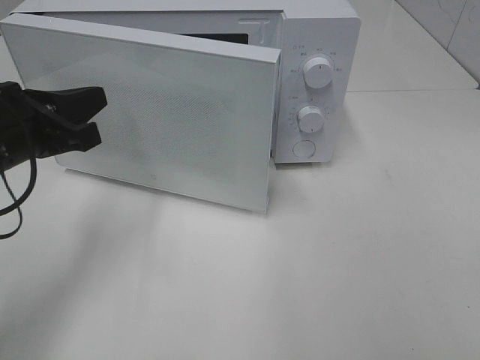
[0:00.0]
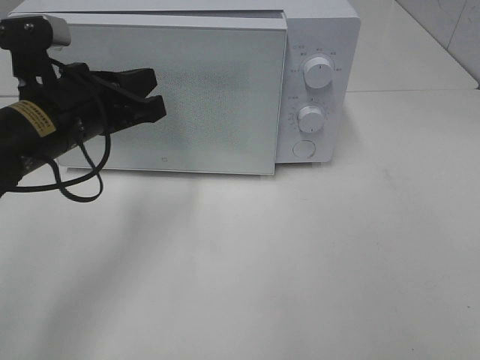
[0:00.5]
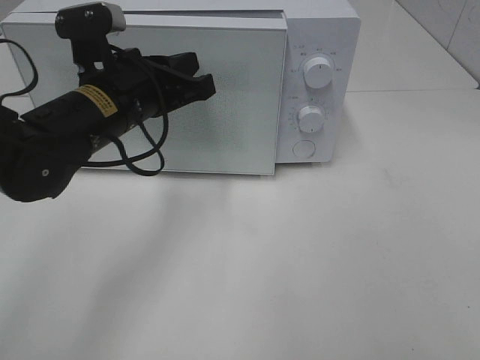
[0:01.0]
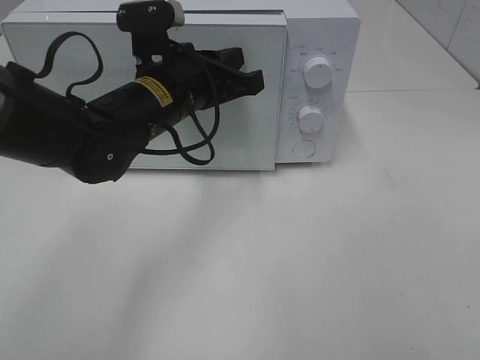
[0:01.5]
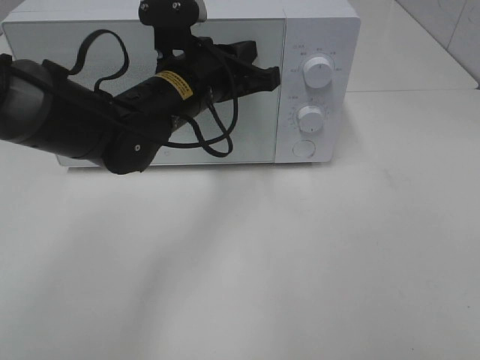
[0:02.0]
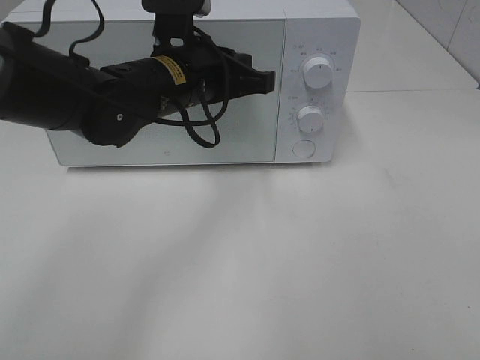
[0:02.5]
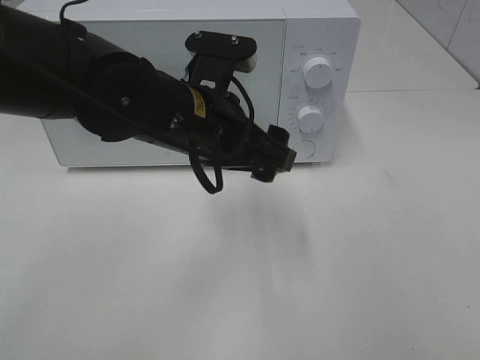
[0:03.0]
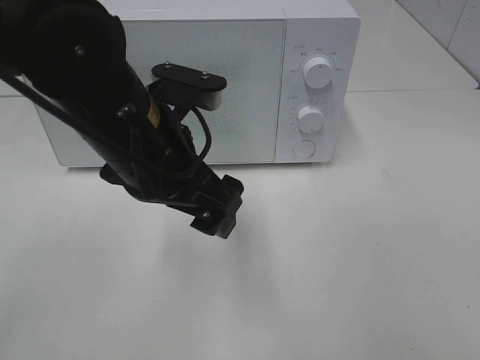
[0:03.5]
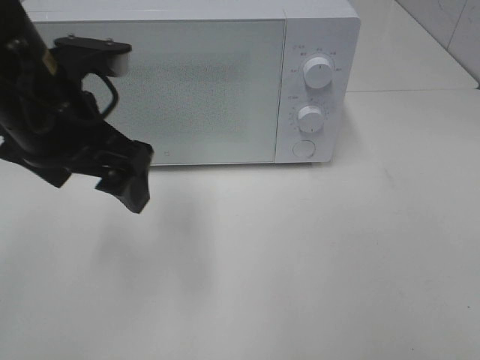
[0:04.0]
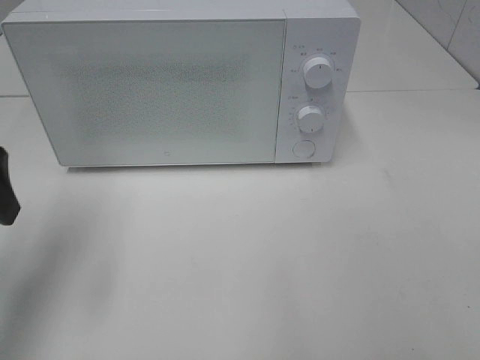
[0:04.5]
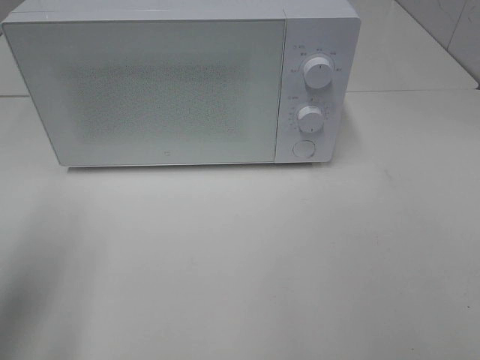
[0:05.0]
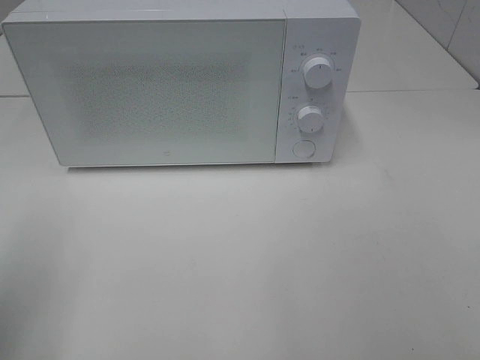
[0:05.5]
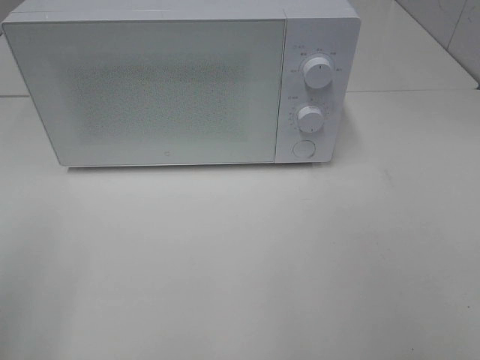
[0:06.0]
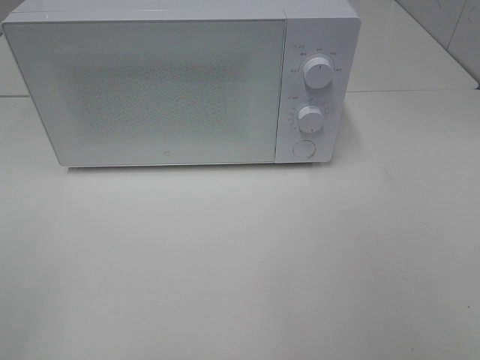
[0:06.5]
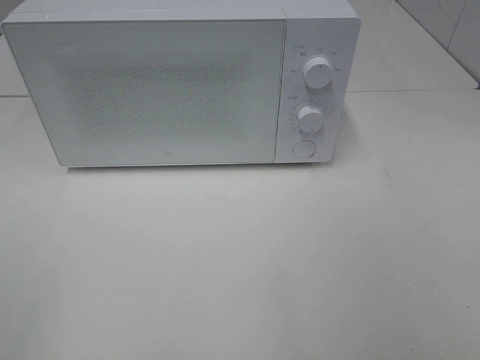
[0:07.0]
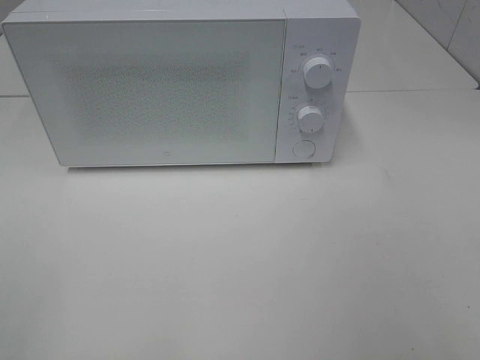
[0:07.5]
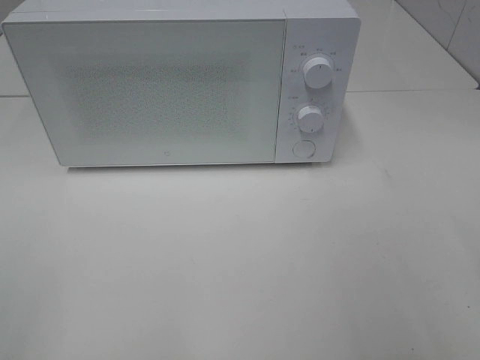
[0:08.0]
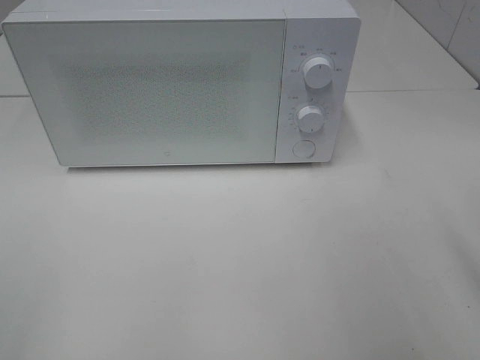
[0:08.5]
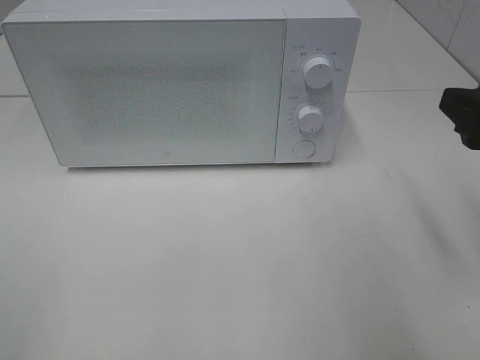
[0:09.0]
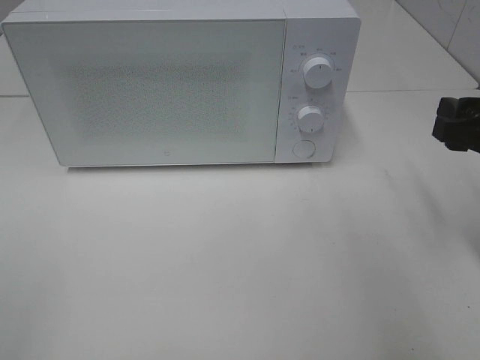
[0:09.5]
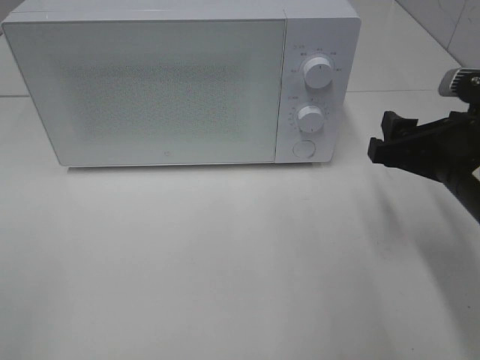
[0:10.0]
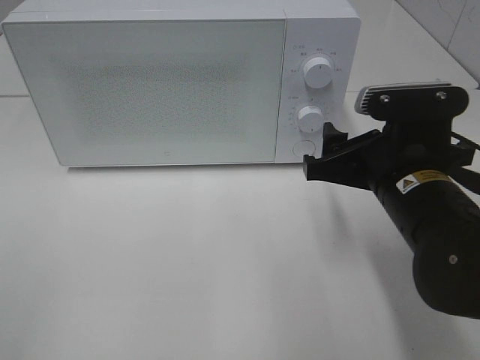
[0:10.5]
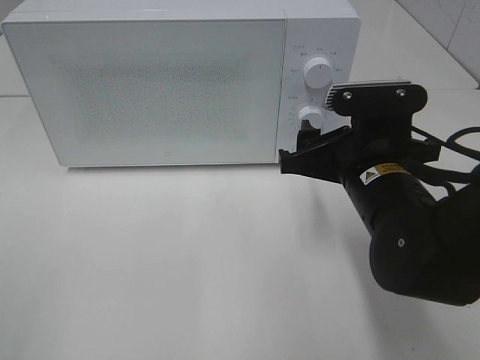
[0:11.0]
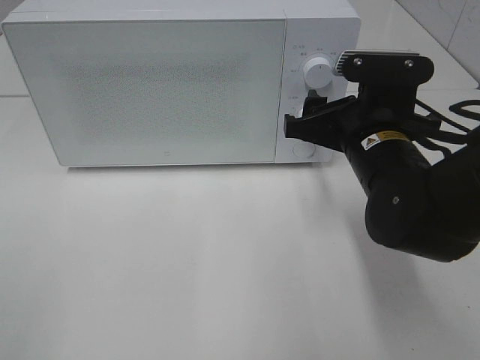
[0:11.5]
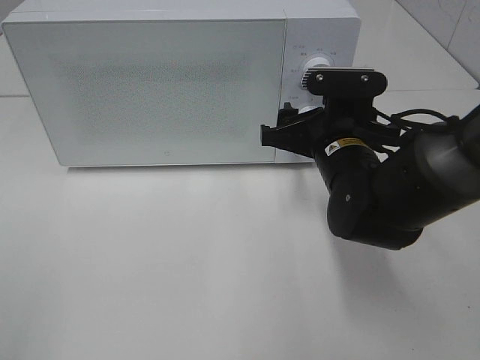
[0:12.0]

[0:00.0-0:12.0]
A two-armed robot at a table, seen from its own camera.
Task of the whole recording: Heat the burger.
Step, 0:00.0 to 0:02.5: Left hand: close the microwave door.
0:00.0 to 0:02.0: The left gripper moves to the right and forward, some 20 cm.
0:02.0 to 0:04.0: The left gripper heads to the left, backward and upward, covering about 15 cm, and opens.
0:04.0 to 0:06.0: The left gripper shifts some 25 cm backward and to the left.
0:08.0 to 0:10.0: The right gripper moves forward, downward and to the left, approximately 20 cm.
0:10.0 to 0:12.0: The right gripper heads to the left and forward, covering roughly 10 cm.

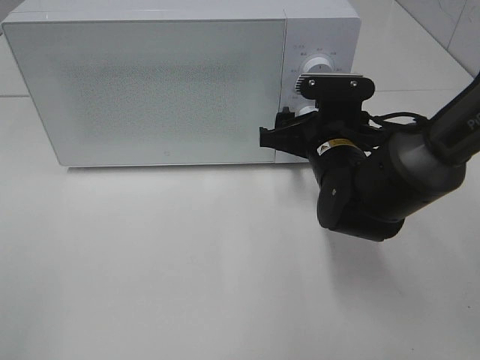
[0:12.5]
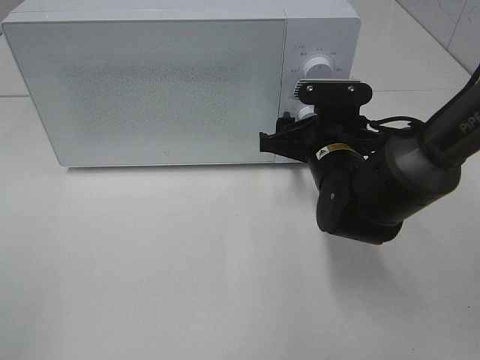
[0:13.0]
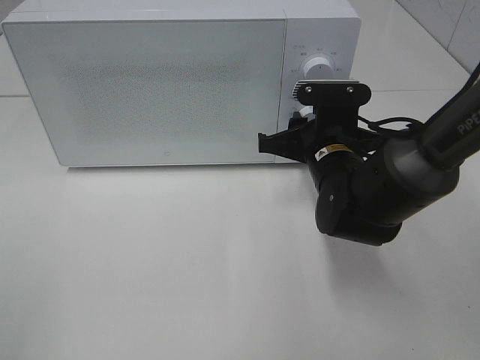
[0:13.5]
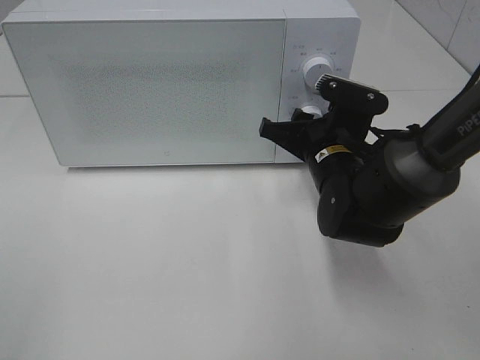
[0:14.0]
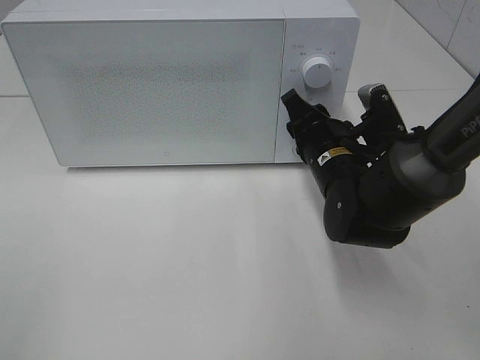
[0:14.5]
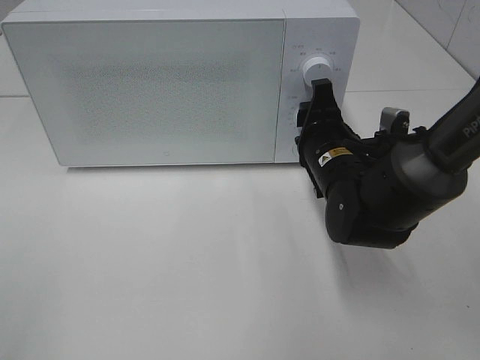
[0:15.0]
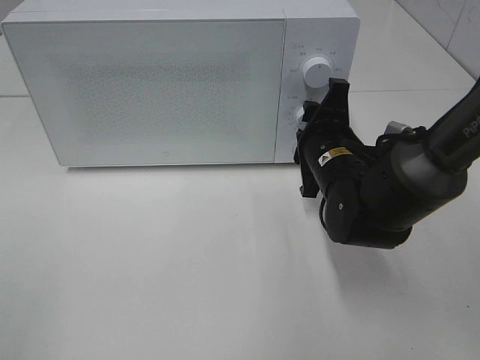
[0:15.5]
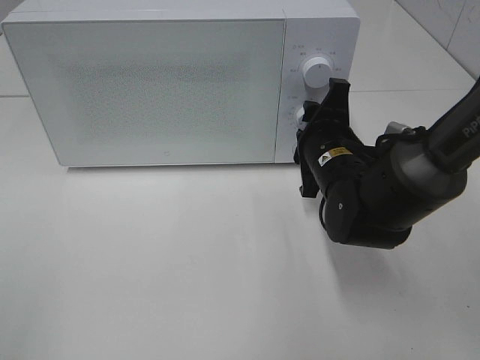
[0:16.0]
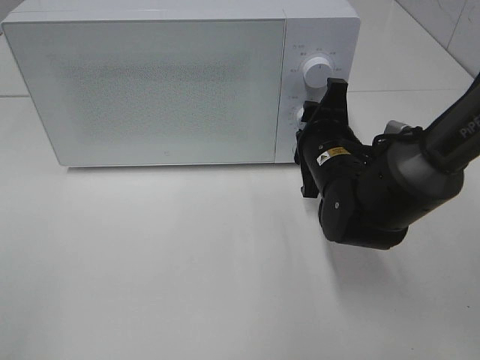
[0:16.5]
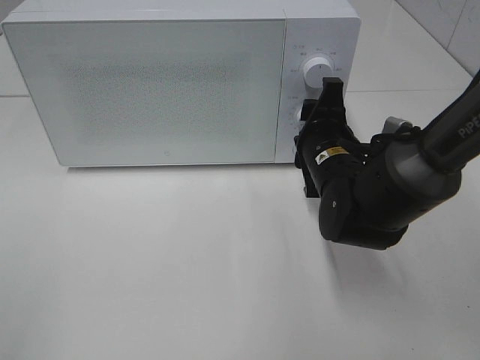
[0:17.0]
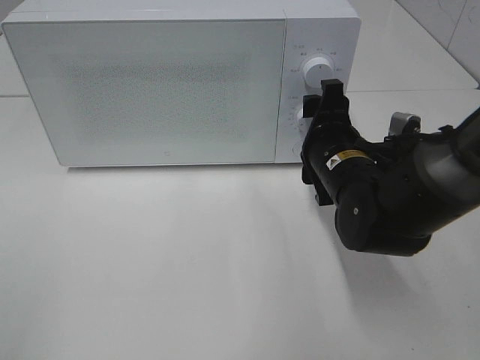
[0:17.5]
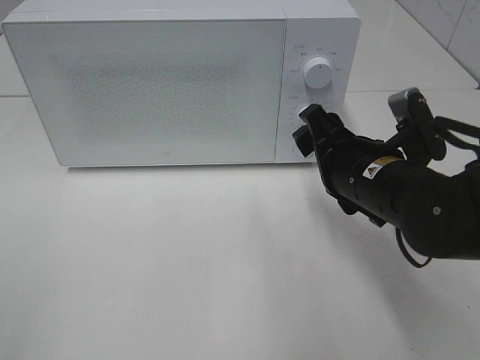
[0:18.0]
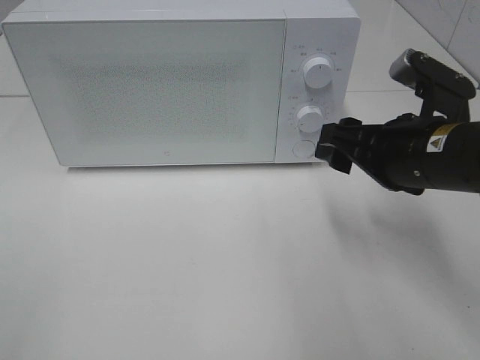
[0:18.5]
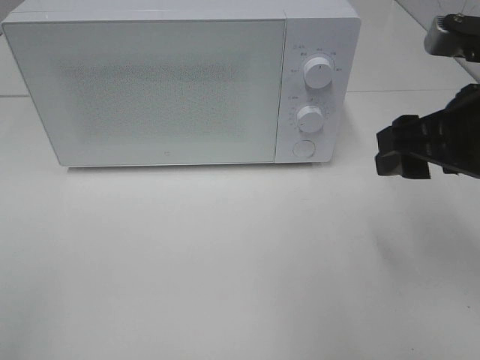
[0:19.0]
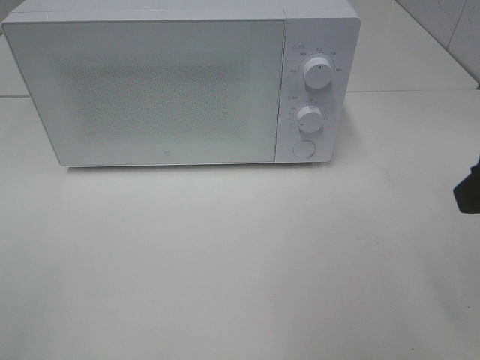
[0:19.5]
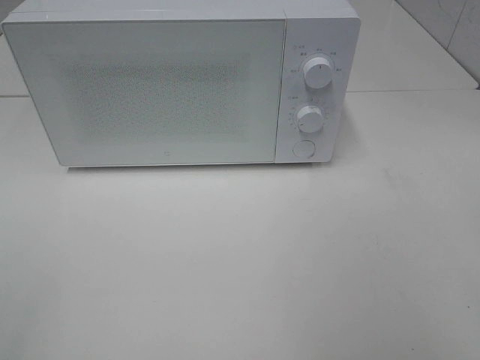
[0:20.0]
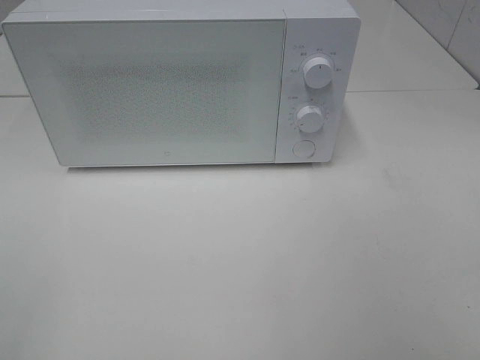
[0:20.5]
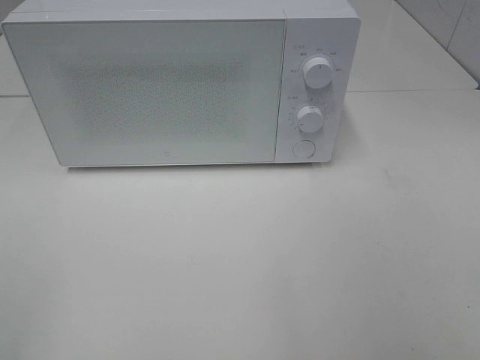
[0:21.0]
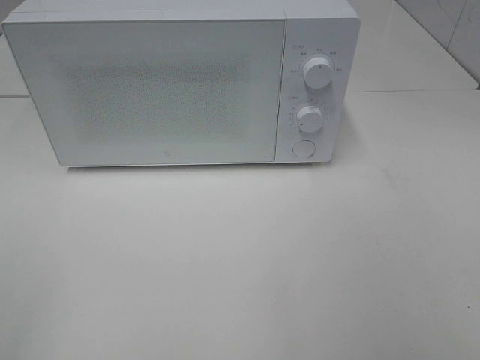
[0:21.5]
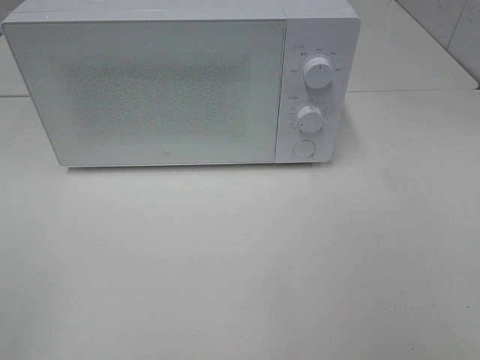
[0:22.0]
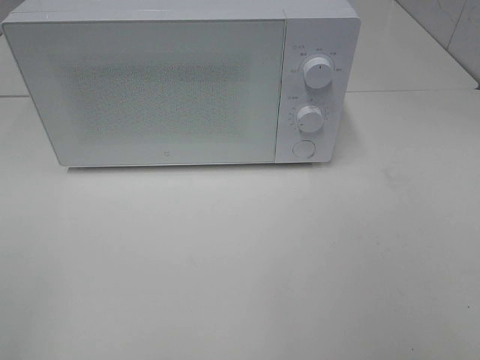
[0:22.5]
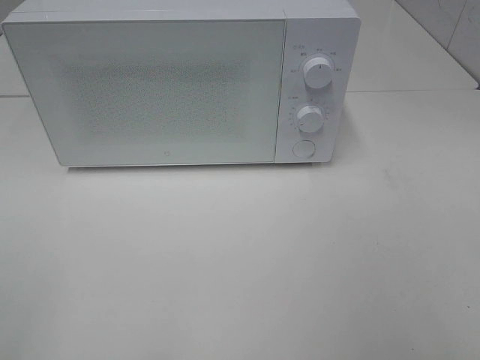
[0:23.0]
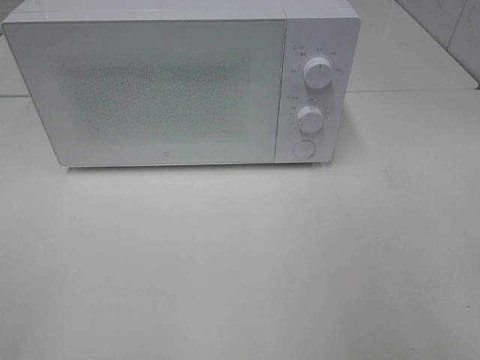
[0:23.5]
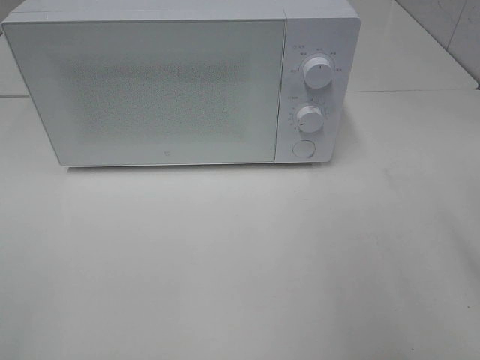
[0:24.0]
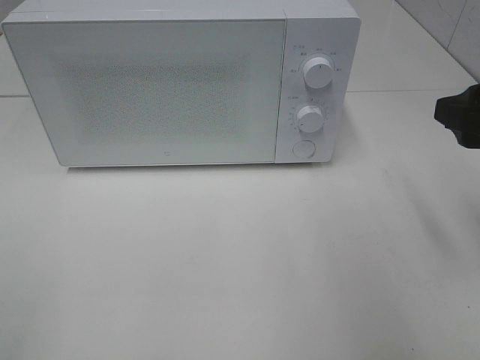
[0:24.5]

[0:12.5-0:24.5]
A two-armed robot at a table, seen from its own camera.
Task of the whole recording: Heat the burger.
Step, 0:12.5 to 0:17.0: Right hand: twist timer button.
0:12.5 to 0:14.5: The right gripper closes up.
0:16.5 to 0:18.5: The right gripper shifts approximately 15 cm upward, backward and to the right, and opens up.
0:18.5 to 0:20.5: The right gripper travels backward, upward and to the right by roughly 25 cm.
0:22.5 to 0:24.5: The right gripper moves forward, some 20 cm.

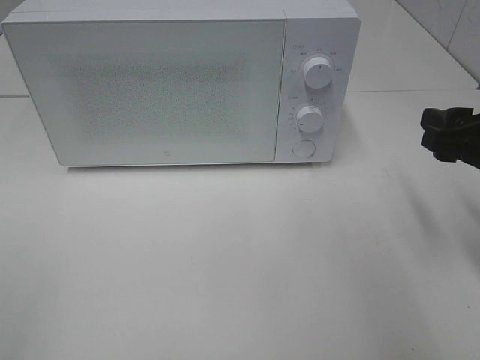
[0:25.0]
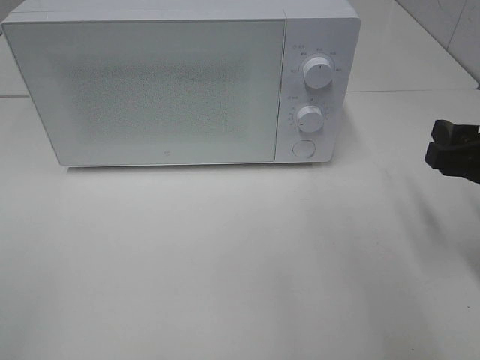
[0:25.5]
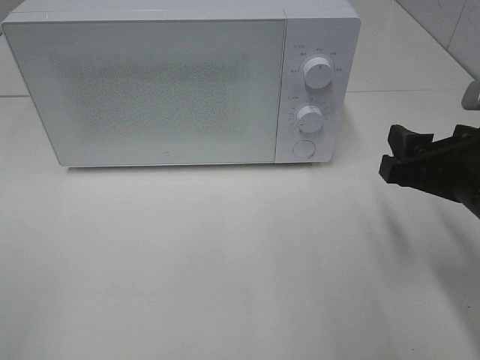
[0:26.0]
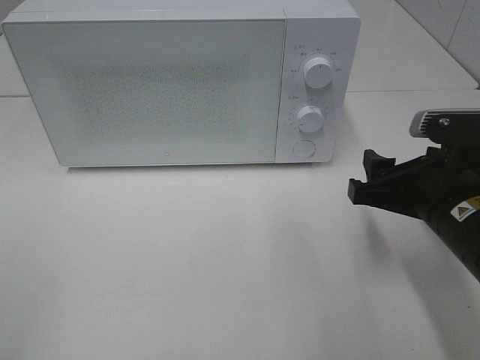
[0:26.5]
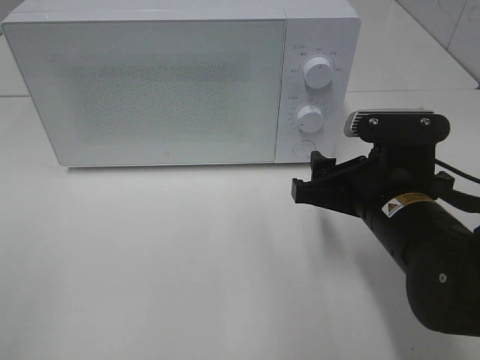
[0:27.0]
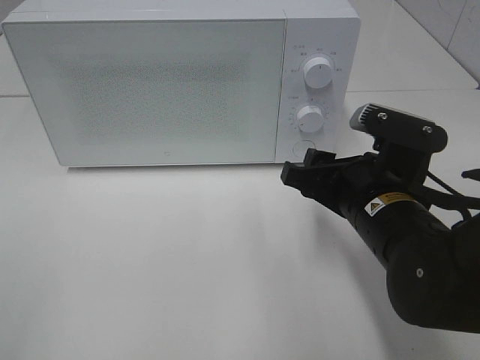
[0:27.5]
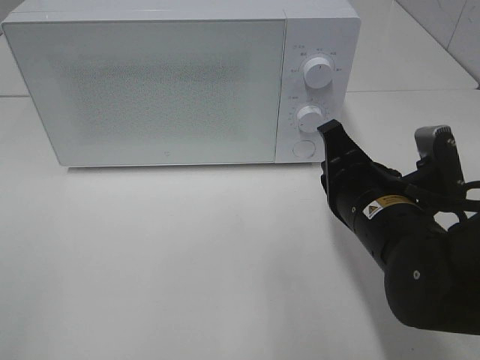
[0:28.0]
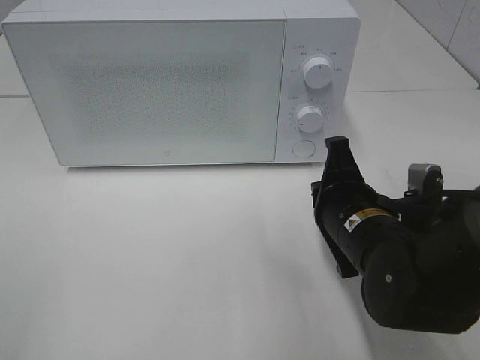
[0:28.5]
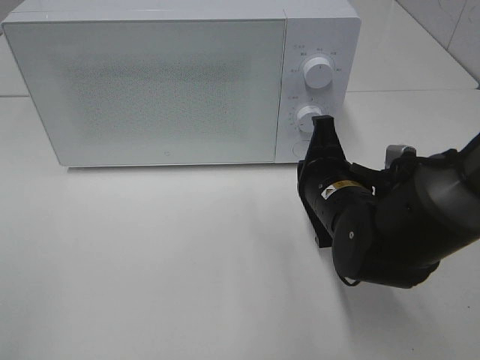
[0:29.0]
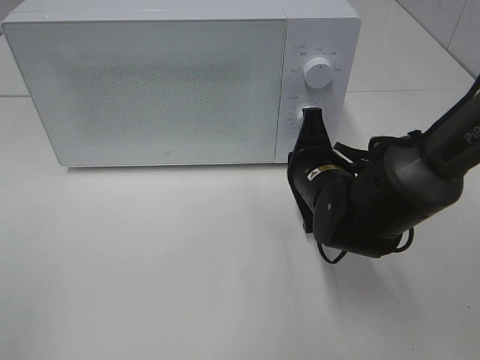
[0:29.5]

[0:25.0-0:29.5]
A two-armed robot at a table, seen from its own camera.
Task of the whole recording: Heat the burger.
0:25.0 to 0:27.0: The right gripper heads to the left and downward, covering roughly 15 cm.
0:27.0 to 0:29.5: The right gripper moves forward and downward, approximately 10 cm, and closes up.
